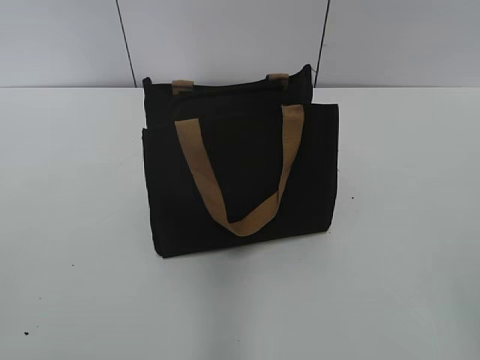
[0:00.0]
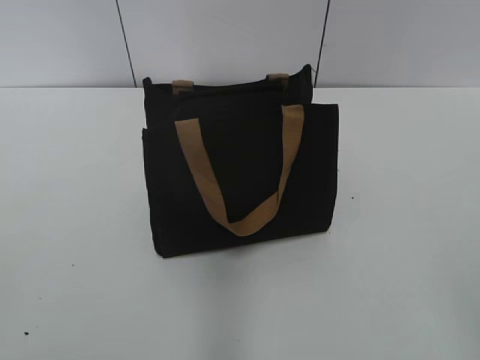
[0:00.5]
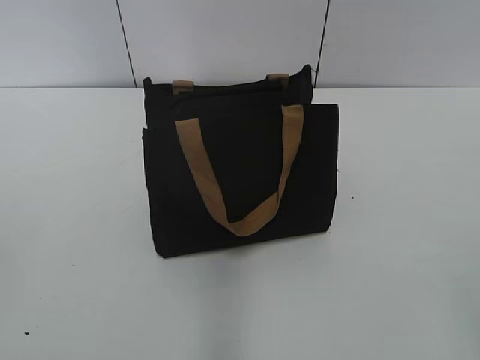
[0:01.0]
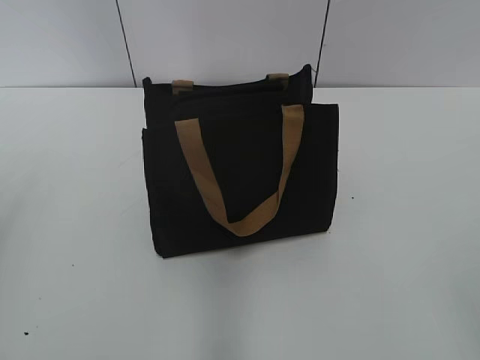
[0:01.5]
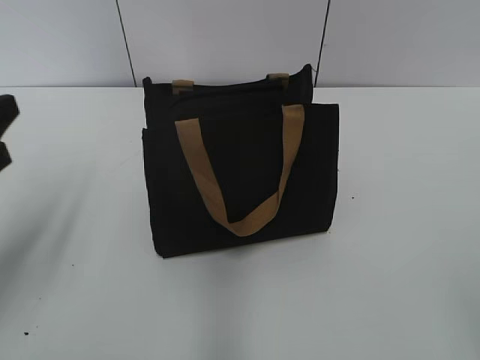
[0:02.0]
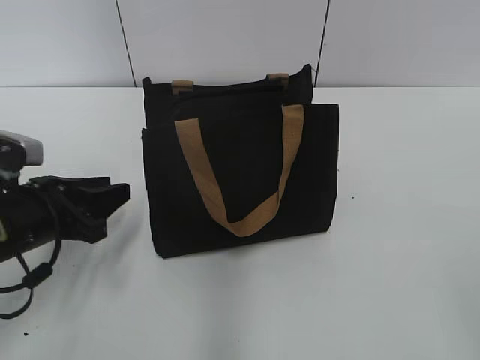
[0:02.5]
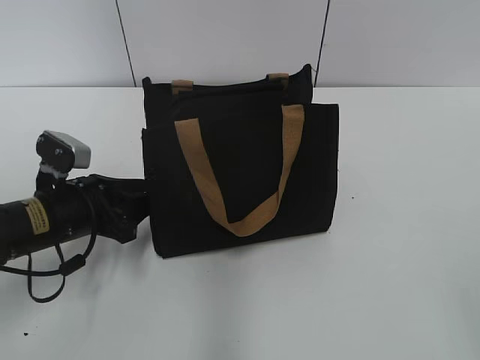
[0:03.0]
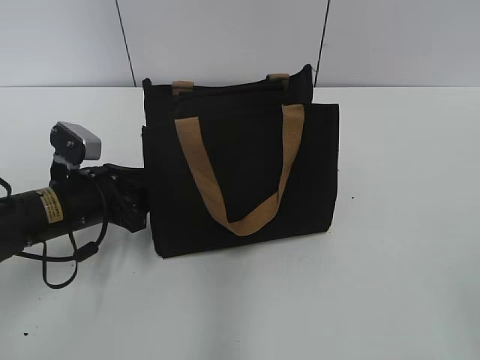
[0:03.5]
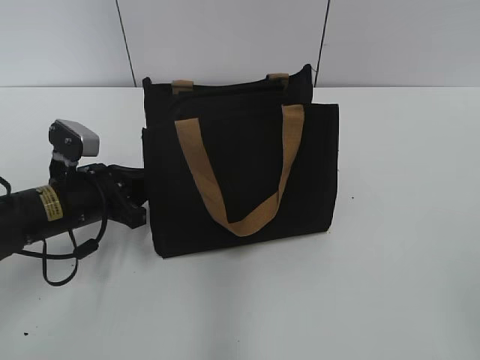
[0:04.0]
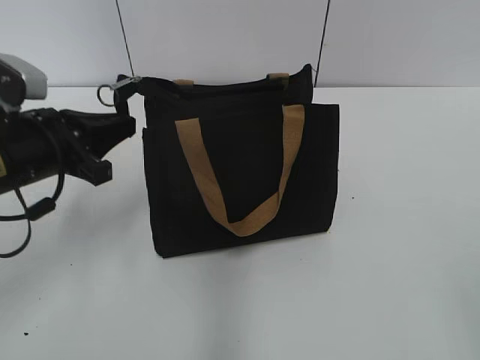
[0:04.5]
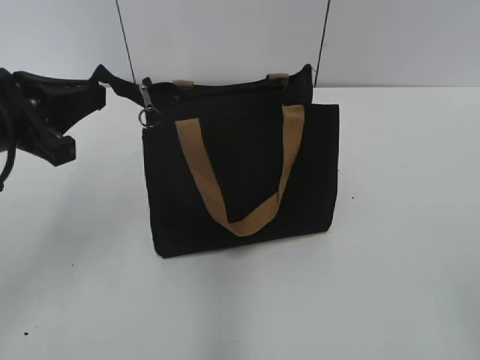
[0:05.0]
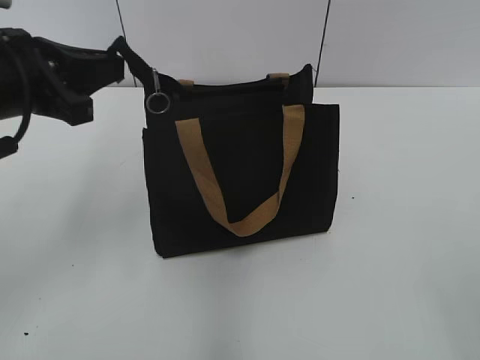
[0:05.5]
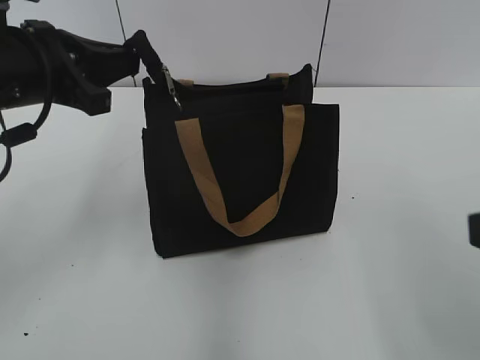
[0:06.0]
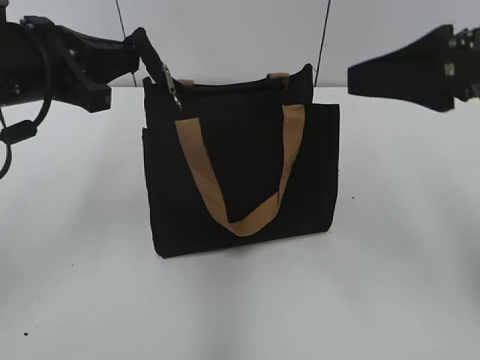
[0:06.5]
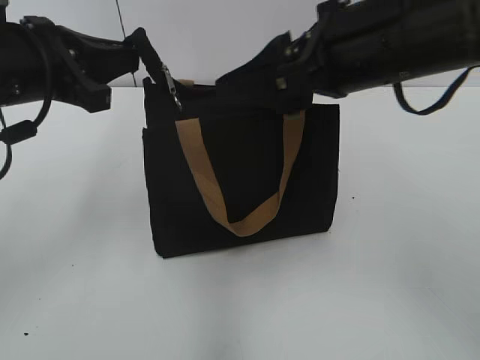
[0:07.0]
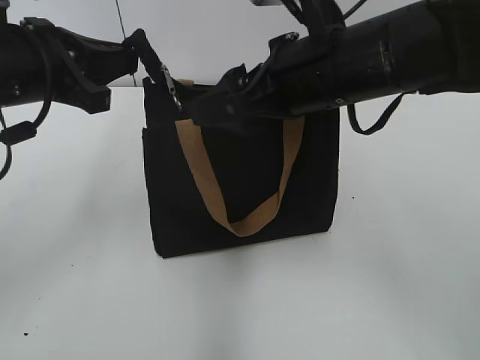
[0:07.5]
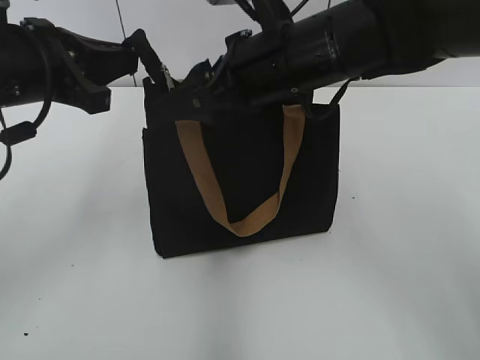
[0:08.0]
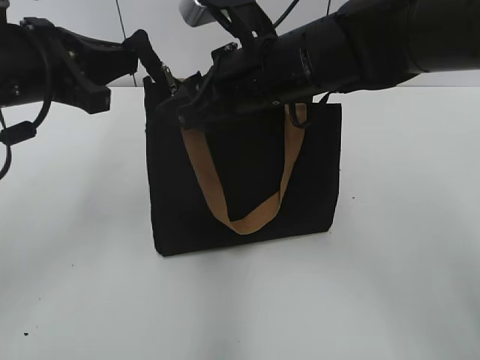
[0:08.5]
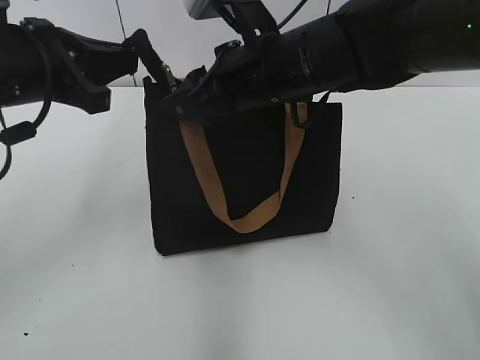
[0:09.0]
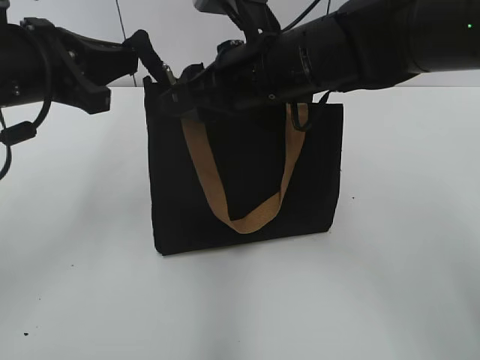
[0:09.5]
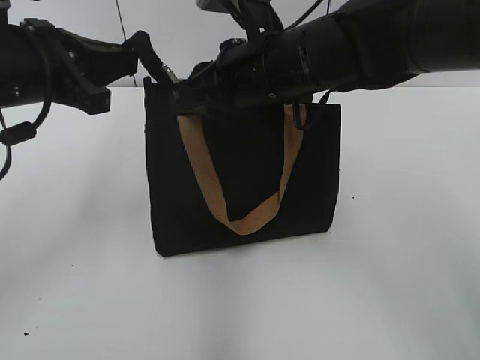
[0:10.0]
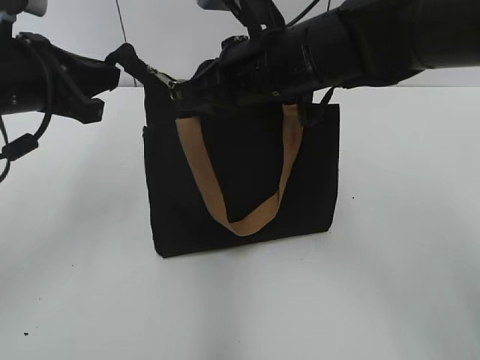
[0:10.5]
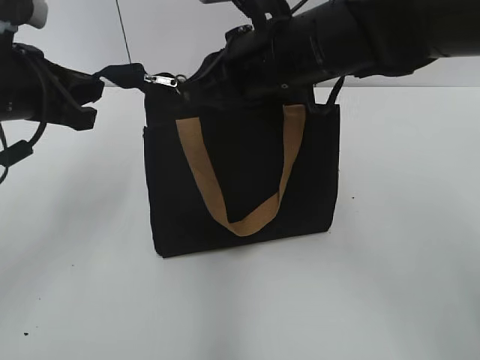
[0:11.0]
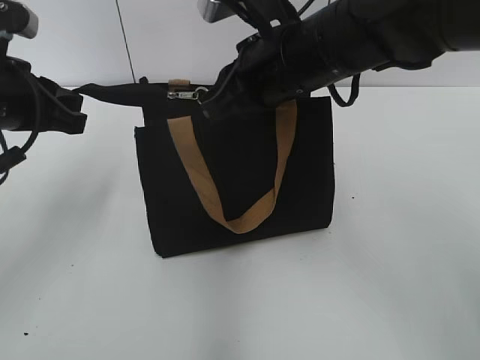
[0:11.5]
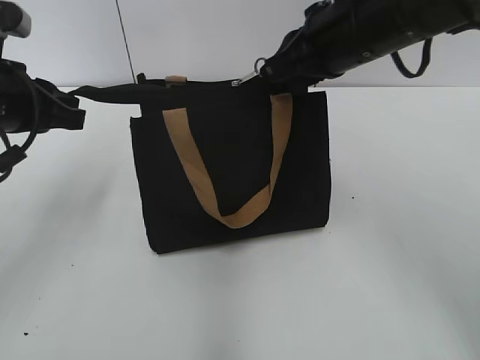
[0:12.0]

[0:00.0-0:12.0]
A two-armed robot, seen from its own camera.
0:02.0 to 0:04.0: The left gripper travels downward, forward and to the right by about 20 cm, and closes its fingers.
0:04.0 to 0:06.0: The left gripper goes about 20 cm upward, while the right gripper goes approximately 10 cm forward.
0:06.0 to 0:08.0: The right gripper shifts roughly 30 cm forward and to the left.
0:08.0 to 0:10.0: The right gripper closes up.
0:10.0 to 0:12.0: The right gripper travels to the right by about 5 cm.

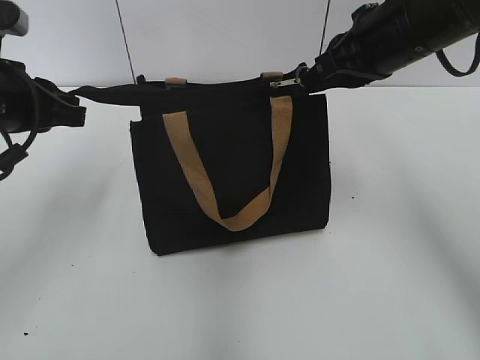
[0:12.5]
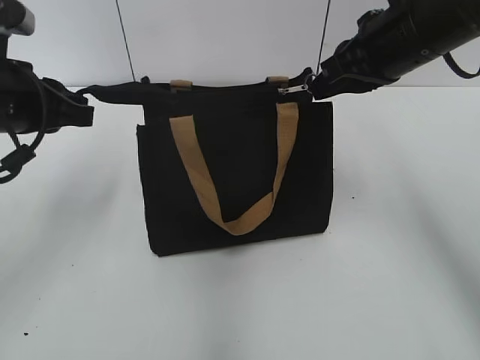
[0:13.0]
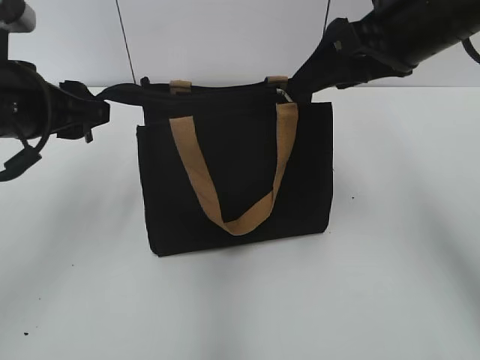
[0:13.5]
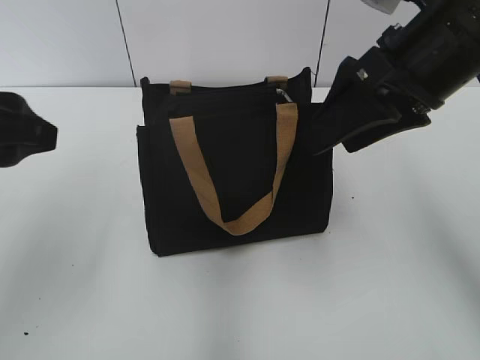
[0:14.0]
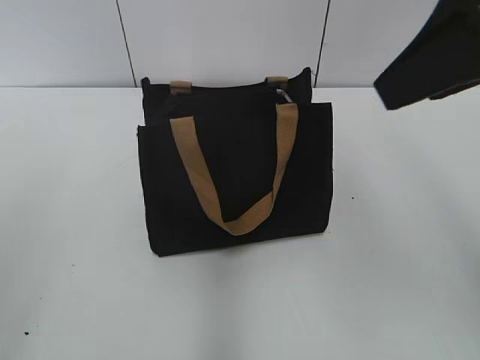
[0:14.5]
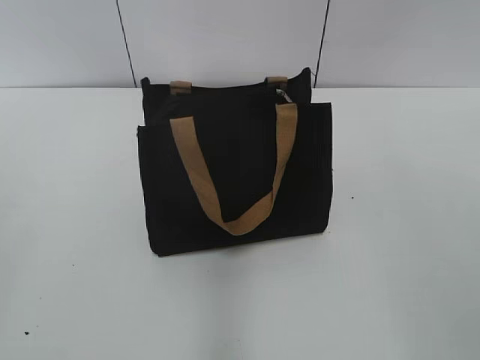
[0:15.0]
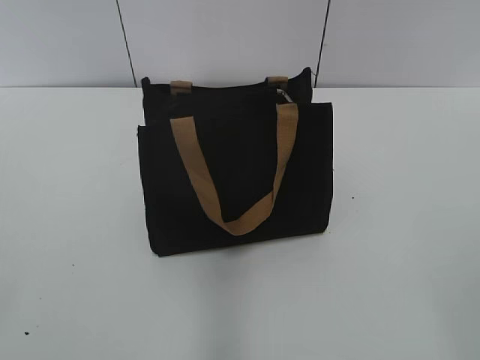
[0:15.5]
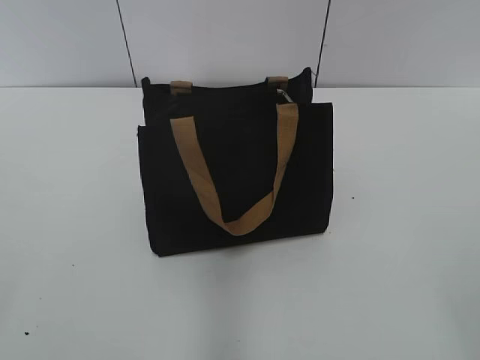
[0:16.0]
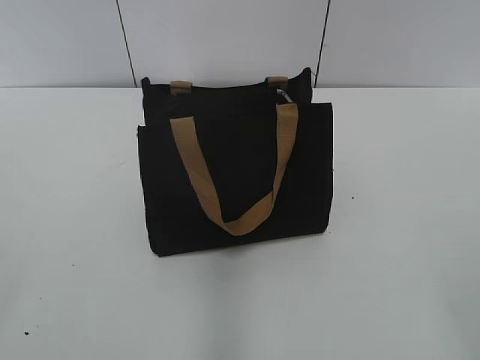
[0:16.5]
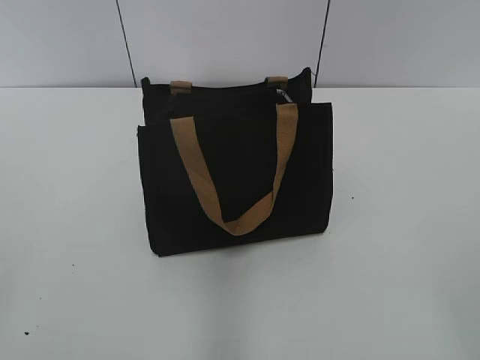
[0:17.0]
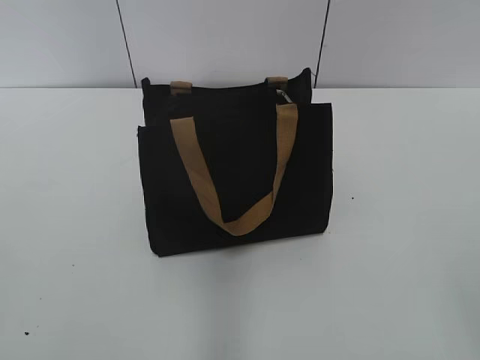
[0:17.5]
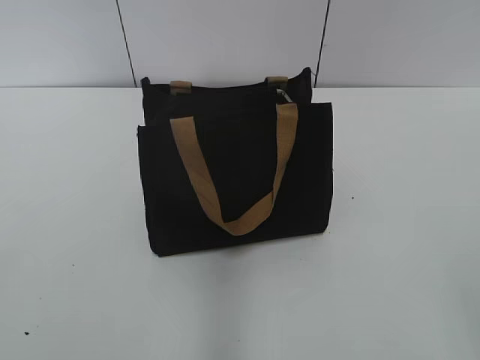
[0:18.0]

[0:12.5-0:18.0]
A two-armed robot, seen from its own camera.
0:12.5 to 0:14.5: Both grippers move backward and upward, roughly 20 cm. The left gripper opens. The right gripper opens up.
0:14.5 to 0:16.0: The right gripper shifts some 25 cm backward, downward and to the right.

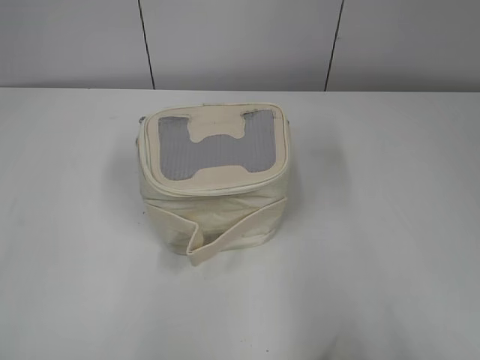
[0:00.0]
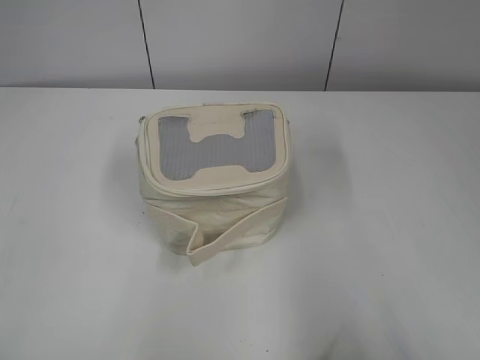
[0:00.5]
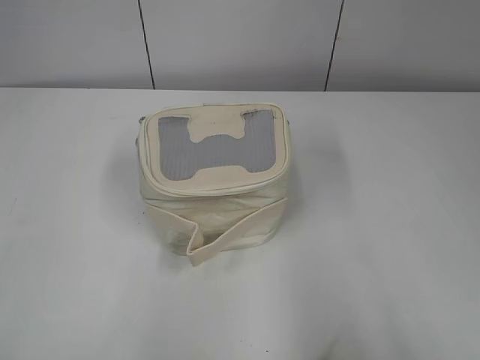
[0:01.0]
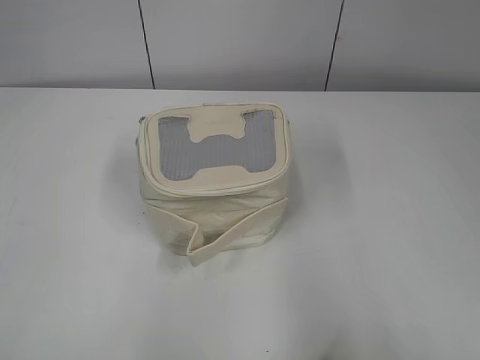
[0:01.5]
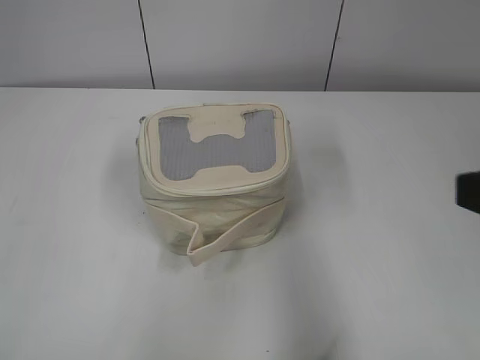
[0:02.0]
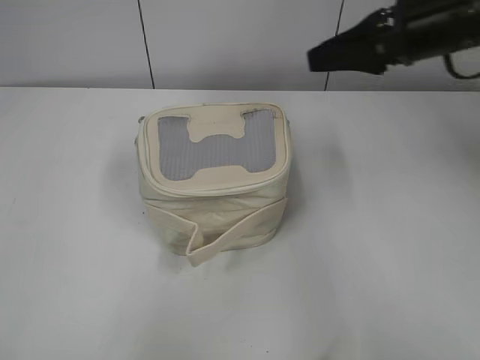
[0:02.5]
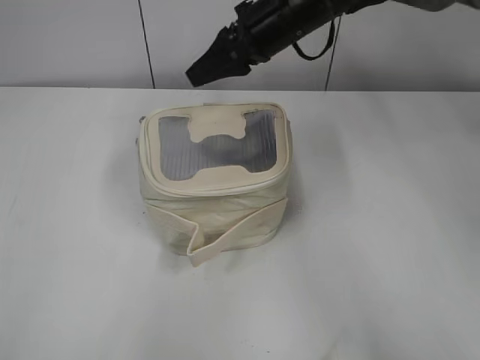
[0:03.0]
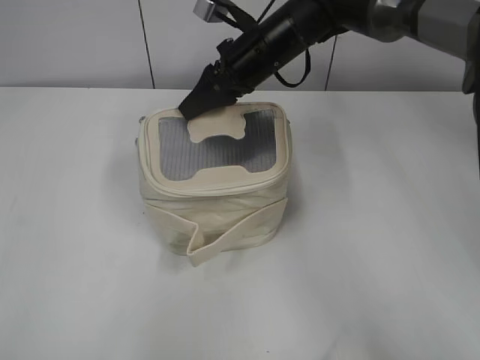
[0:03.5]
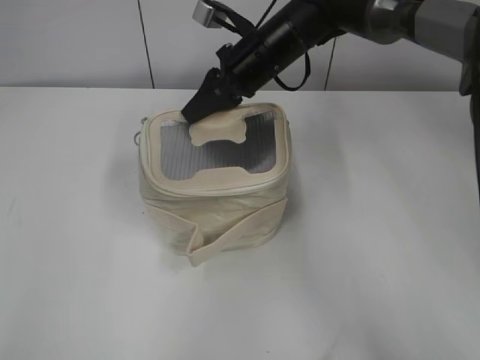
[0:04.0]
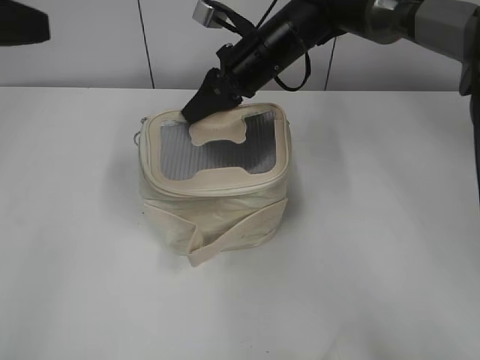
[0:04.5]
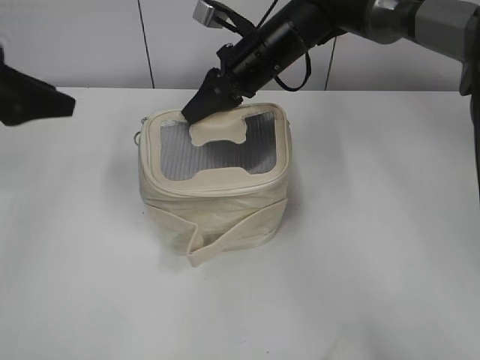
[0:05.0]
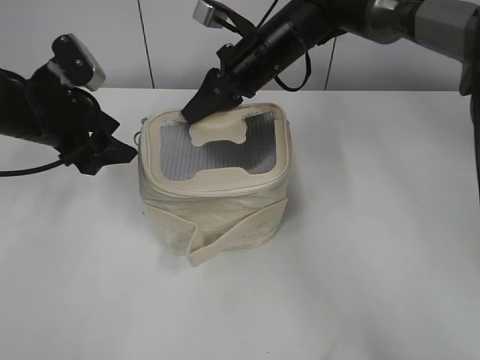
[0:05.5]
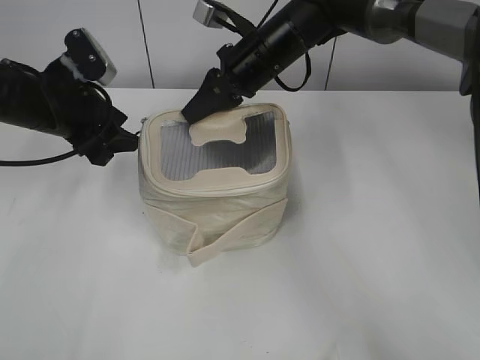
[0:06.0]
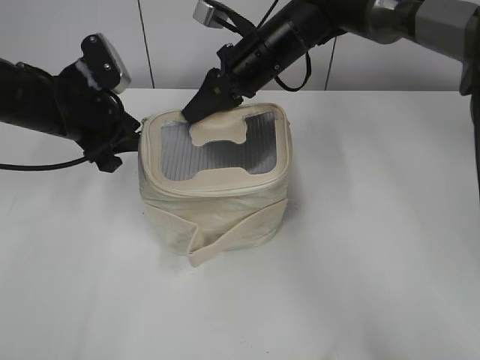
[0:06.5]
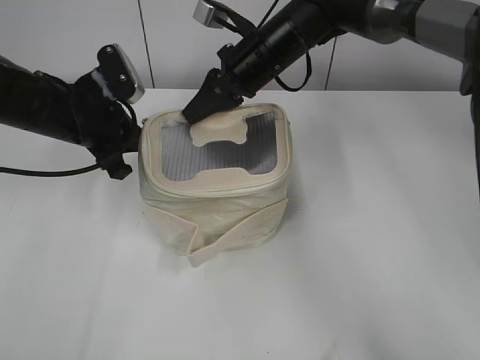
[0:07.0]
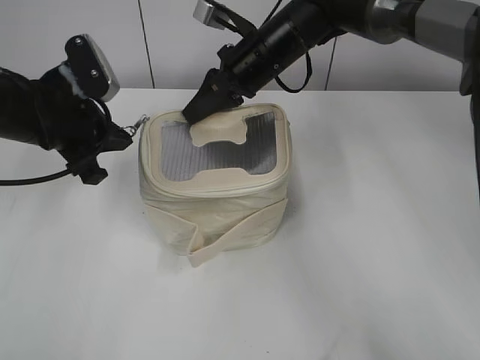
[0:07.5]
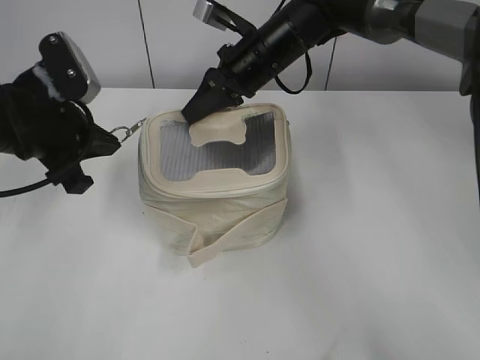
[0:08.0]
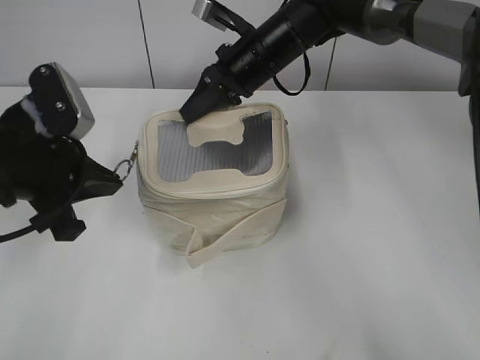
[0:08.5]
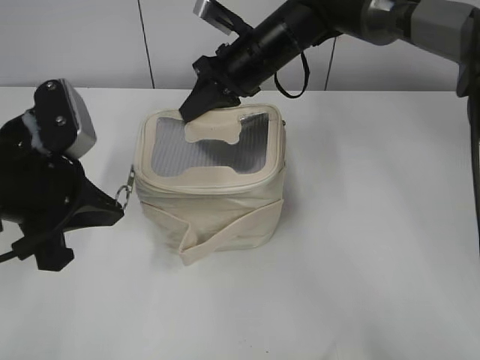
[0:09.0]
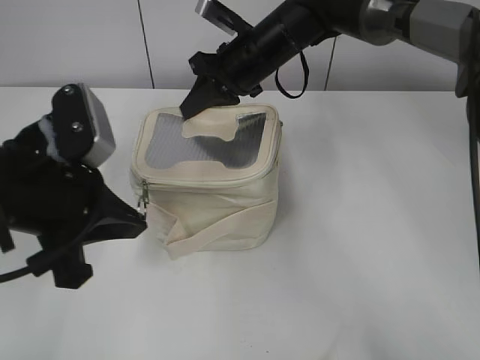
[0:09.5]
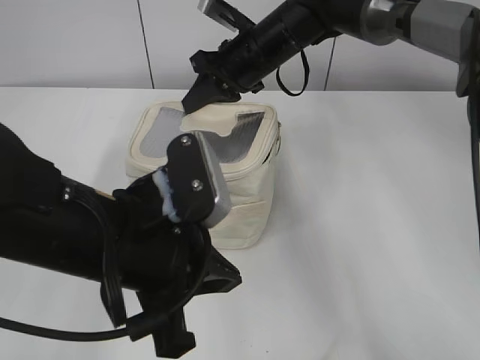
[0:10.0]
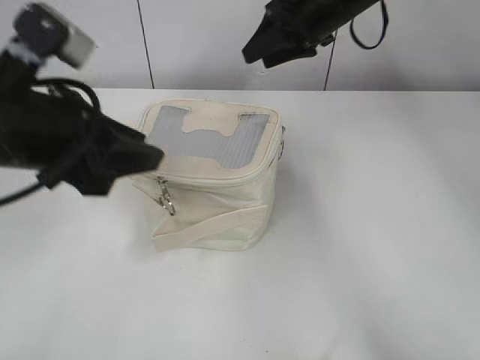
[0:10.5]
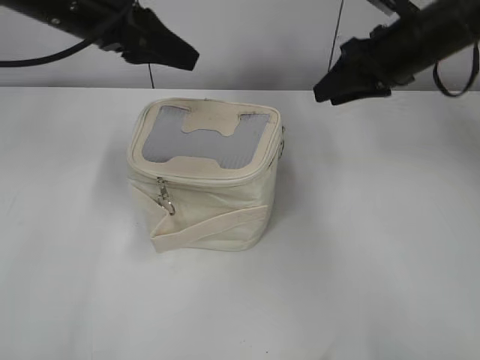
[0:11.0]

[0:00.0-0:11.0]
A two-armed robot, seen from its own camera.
Step, 0:00.0 to 0:09.5: Zip up the bag with your left hand.
0:02.0 to 0:03.5: The right gripper shifts roughly 40 cm forward and to the left.
0:03.5 to 0:05.5: The left gripper shifts roughly 35 cm forward, and opens. The right gripper closes.
0:05.5 to 0:07.5: The left gripper closes up.
0:07.5 to 0:09.0: The left gripper moves backward, roughly 10 cm.
0:09.0 to 0:11.0: The left gripper shifts roughly 15 cm forward and upward, and opens, while the right gripper travels to the right by roughly 15 cm, and opens.
